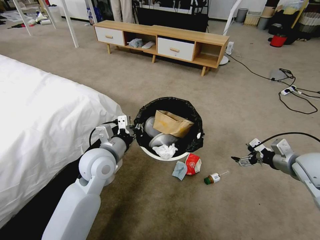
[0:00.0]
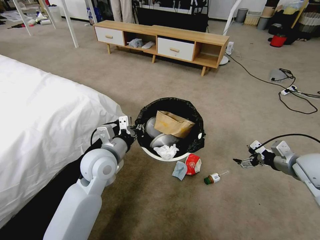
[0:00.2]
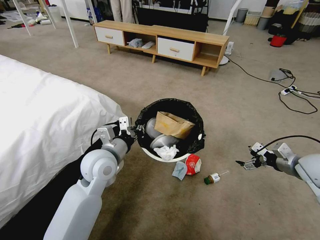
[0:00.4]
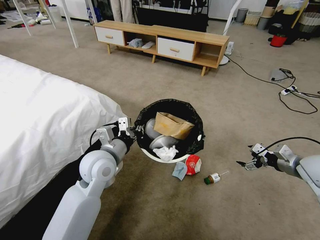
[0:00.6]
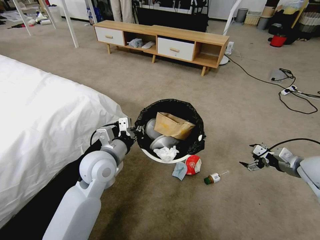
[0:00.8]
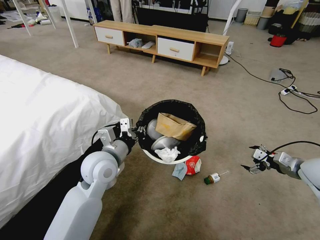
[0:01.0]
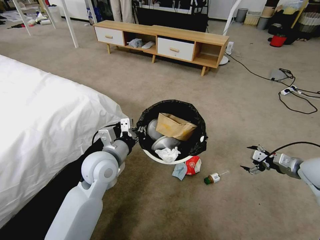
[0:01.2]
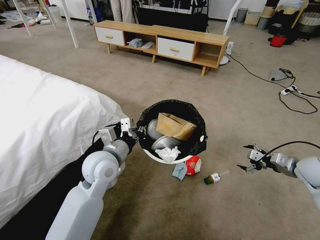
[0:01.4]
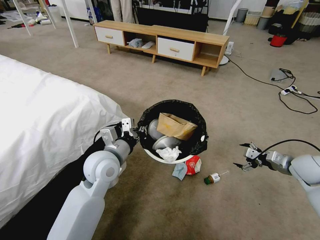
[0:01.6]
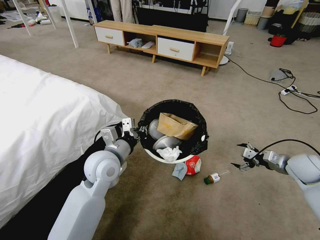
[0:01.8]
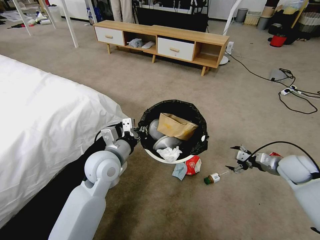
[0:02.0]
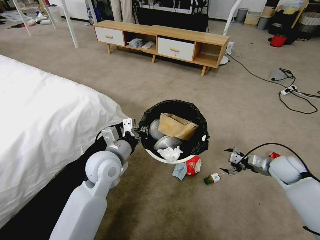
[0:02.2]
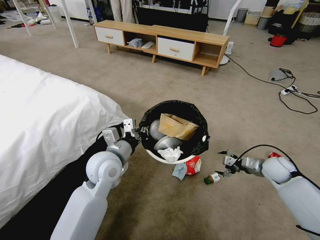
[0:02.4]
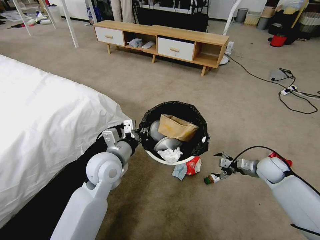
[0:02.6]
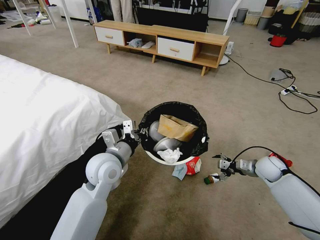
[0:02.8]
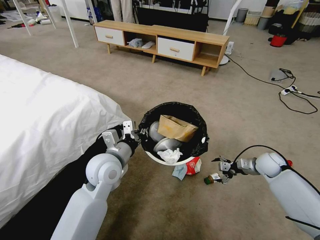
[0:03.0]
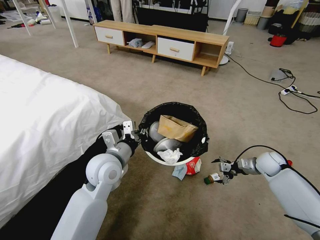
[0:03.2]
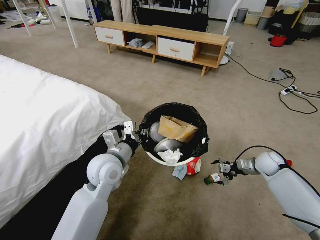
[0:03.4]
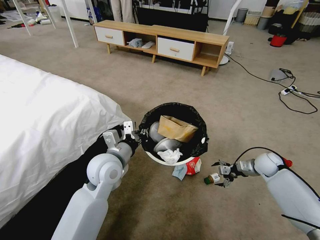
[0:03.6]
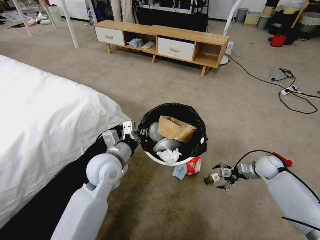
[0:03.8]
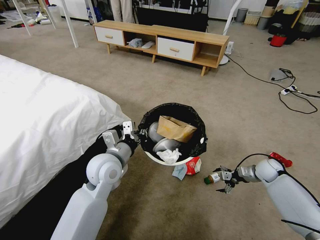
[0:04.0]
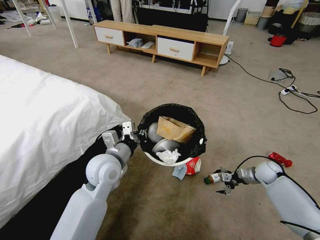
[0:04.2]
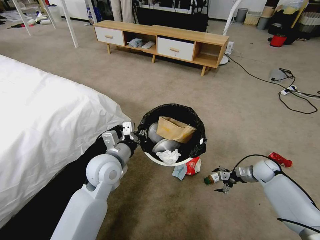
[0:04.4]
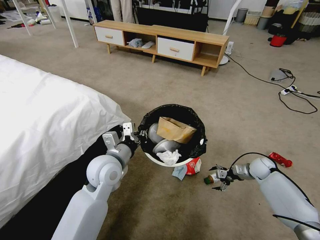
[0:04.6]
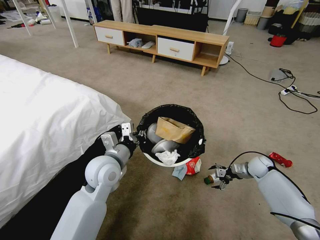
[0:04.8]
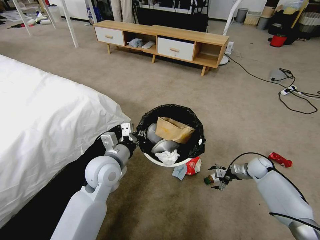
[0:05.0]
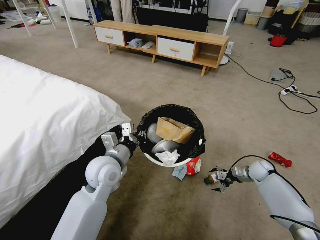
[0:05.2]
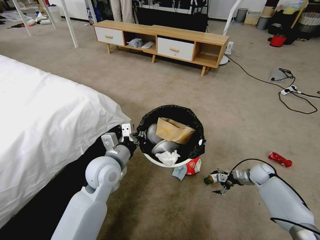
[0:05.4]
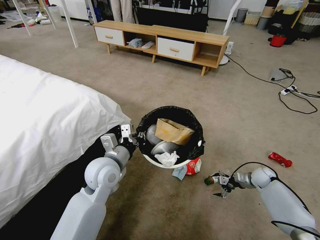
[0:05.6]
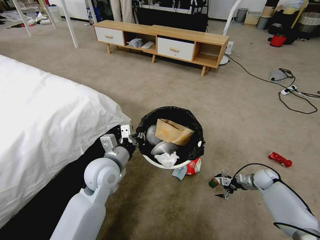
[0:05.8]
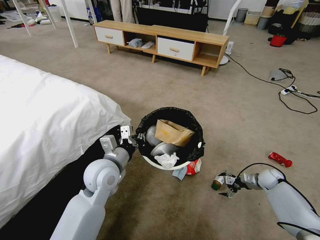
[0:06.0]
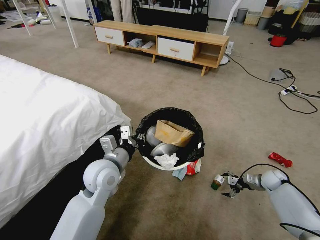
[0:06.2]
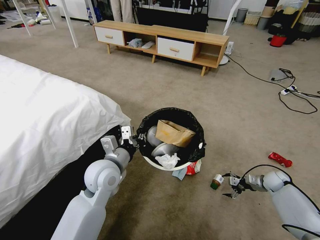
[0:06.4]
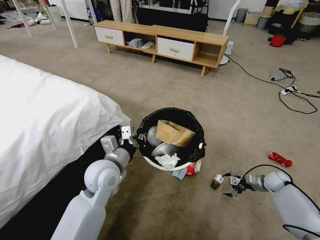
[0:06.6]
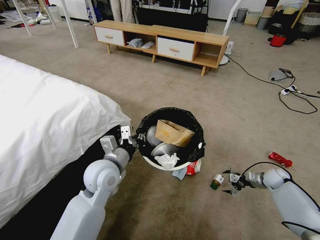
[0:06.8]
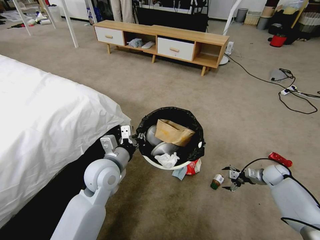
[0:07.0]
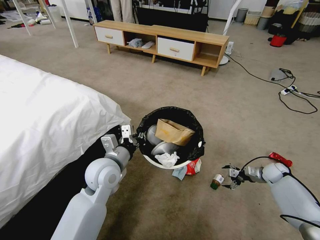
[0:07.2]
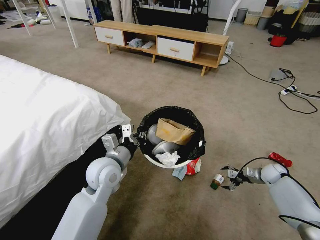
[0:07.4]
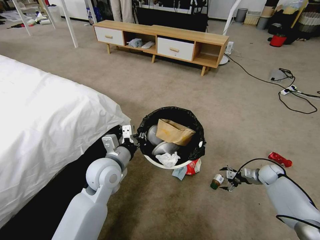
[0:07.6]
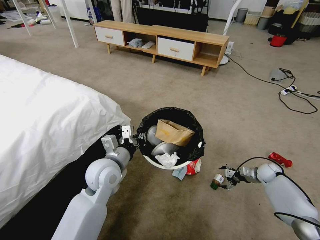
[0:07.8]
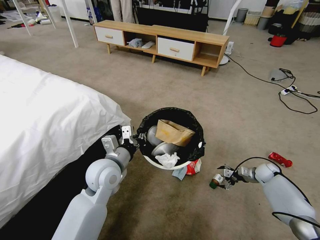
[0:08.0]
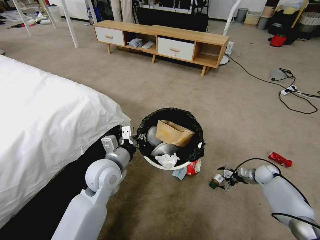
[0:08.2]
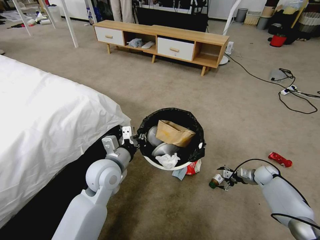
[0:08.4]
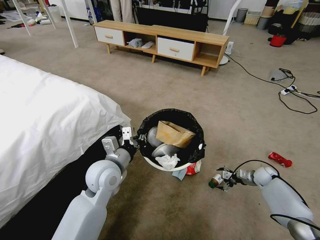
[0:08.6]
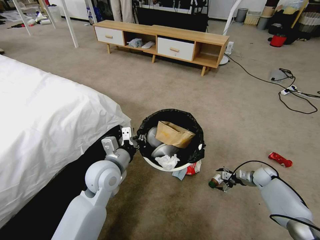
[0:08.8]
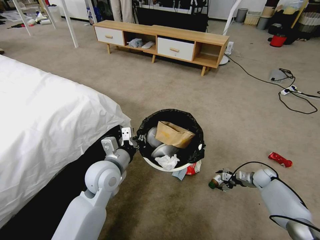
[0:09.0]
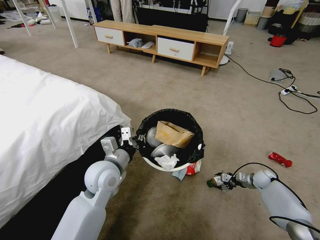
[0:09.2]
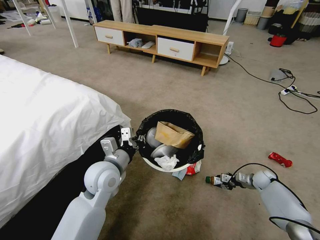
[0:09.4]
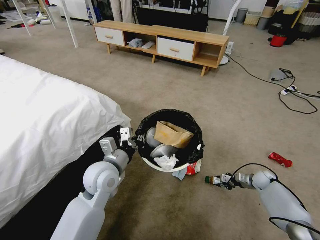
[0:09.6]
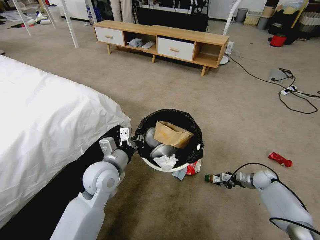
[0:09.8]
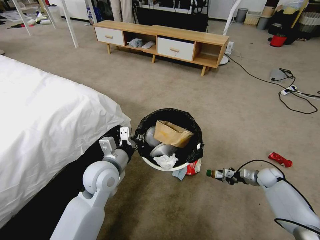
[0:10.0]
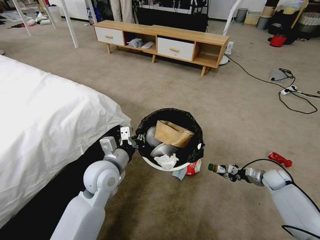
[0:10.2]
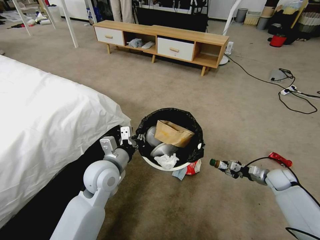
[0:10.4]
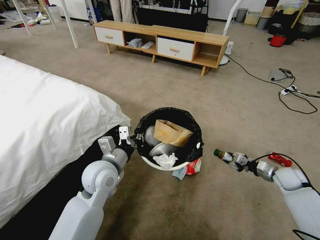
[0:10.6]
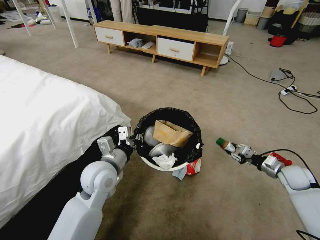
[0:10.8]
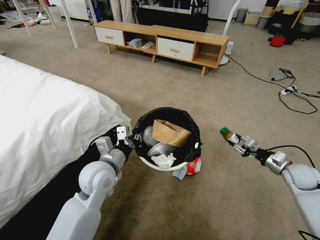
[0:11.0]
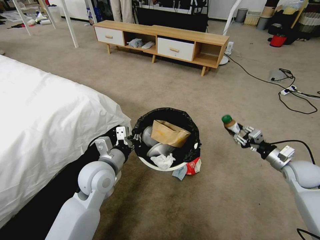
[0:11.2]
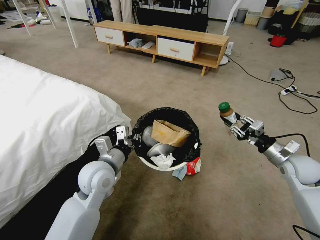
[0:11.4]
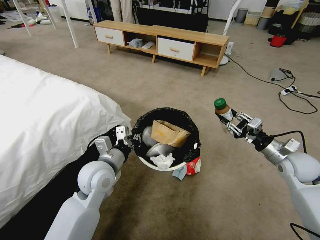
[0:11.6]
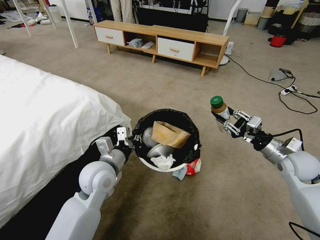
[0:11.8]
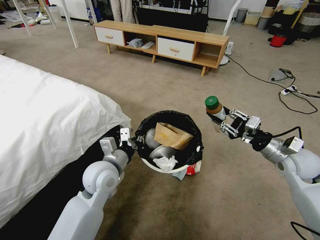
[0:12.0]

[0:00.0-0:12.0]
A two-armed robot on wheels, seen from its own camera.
Task of the whole recording: Pick up the trash bin and place the garbage on the floor into it.
0:00.0 to 0:01.6: The right gripper shifts approximately 10 cm downward and to the right.
0:01.6 to 0:03.0: The right gripper travels downward, forward and to the left by about 10 cm.
0:03.0 to 0:04.4: The right gripper heads downward, covering about 5 cm.
0:04.4 to 0:06.0: The right gripper shifts by some 5 cm.
0:06.0 to 0:09.0: The grippers move only a little.
0:09.0 to 0:10.4: The right gripper shifts approximately 5 cm upward, and closes up.
0:10.4 to 0:12.0: The right gripper travels upward and to the left by roughly 25 cm.

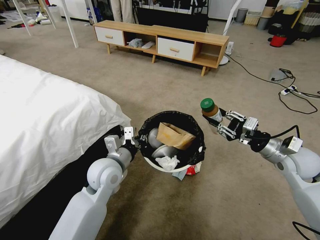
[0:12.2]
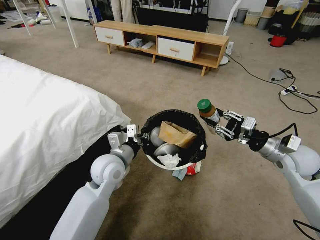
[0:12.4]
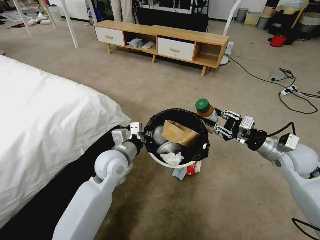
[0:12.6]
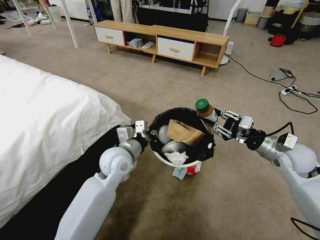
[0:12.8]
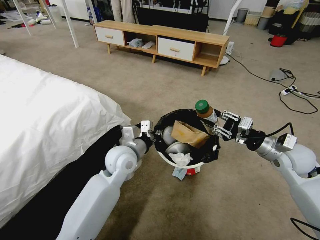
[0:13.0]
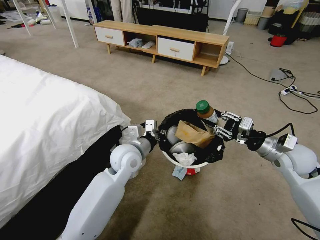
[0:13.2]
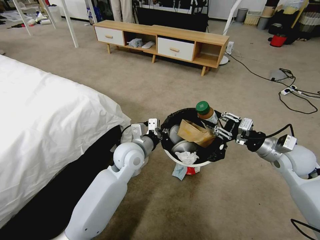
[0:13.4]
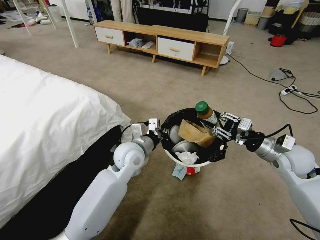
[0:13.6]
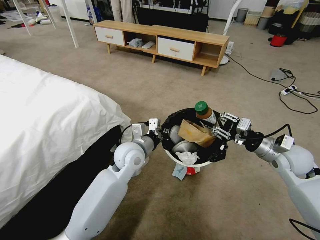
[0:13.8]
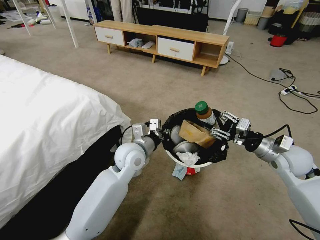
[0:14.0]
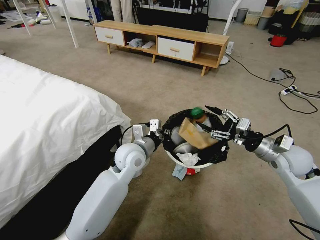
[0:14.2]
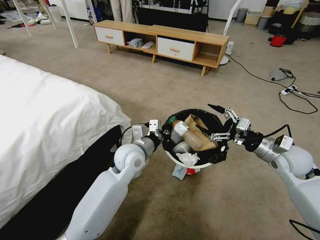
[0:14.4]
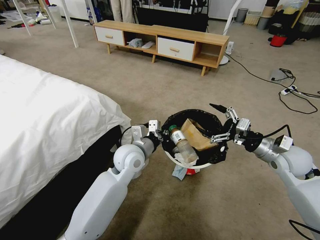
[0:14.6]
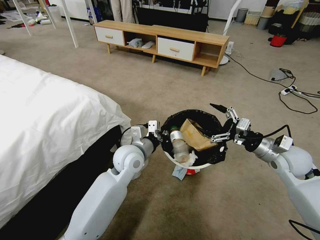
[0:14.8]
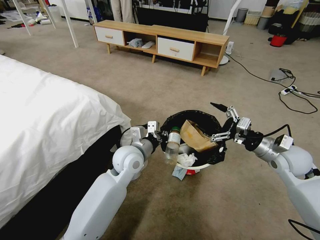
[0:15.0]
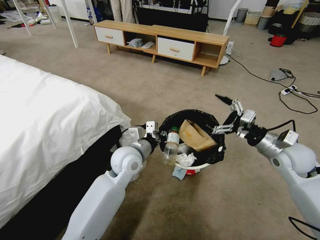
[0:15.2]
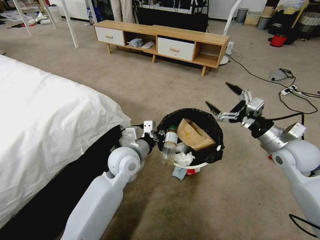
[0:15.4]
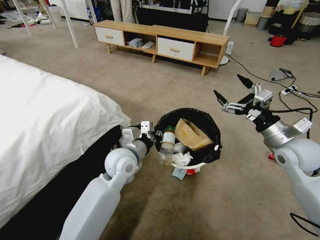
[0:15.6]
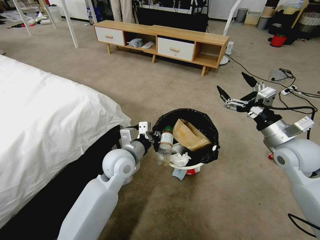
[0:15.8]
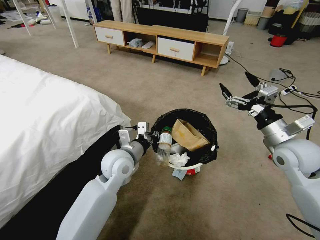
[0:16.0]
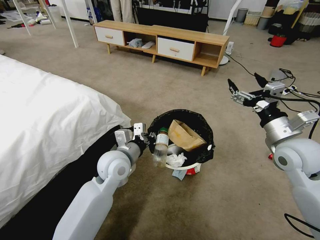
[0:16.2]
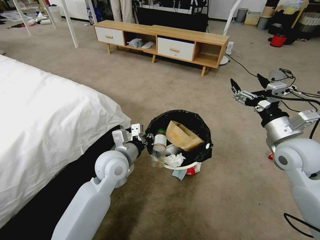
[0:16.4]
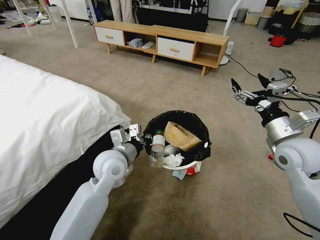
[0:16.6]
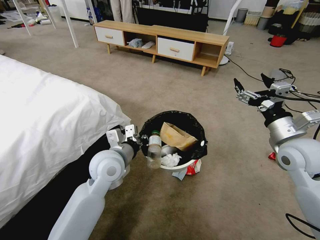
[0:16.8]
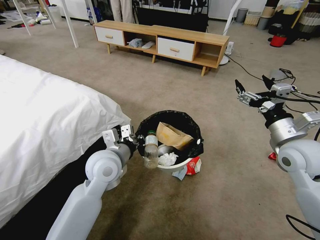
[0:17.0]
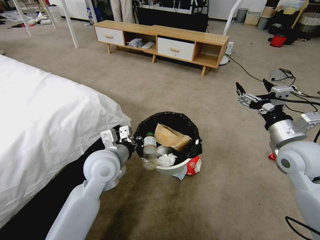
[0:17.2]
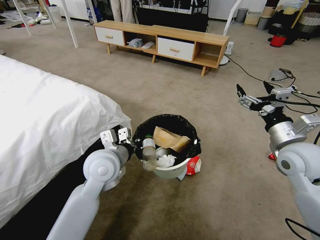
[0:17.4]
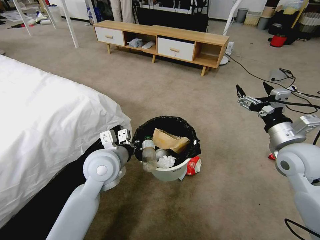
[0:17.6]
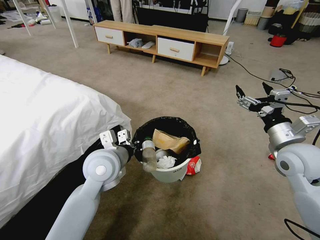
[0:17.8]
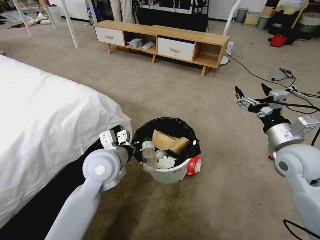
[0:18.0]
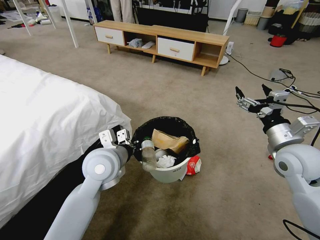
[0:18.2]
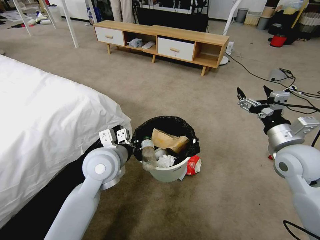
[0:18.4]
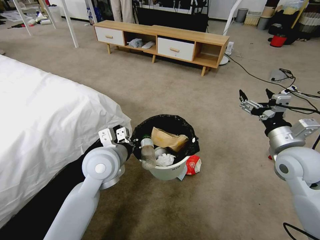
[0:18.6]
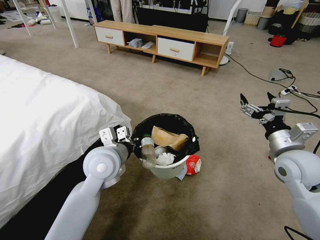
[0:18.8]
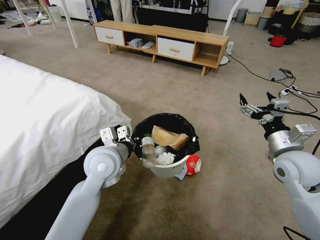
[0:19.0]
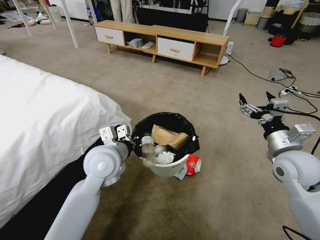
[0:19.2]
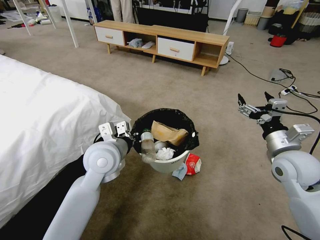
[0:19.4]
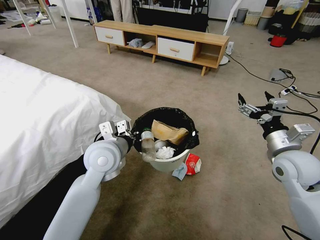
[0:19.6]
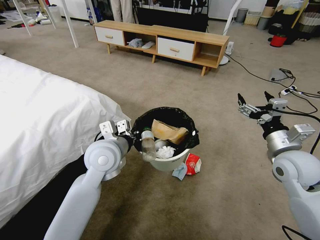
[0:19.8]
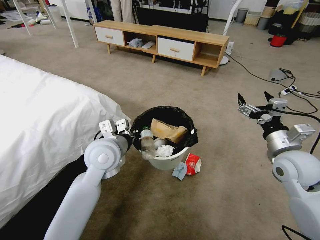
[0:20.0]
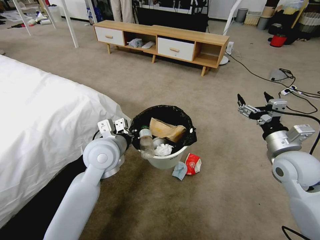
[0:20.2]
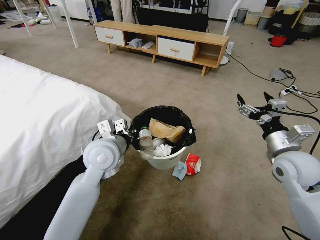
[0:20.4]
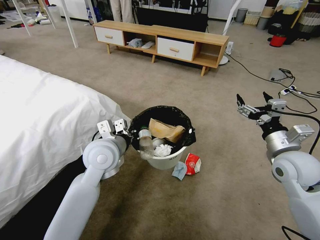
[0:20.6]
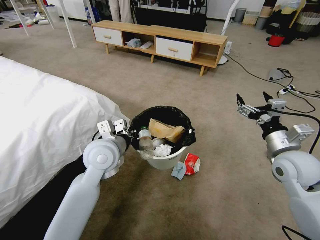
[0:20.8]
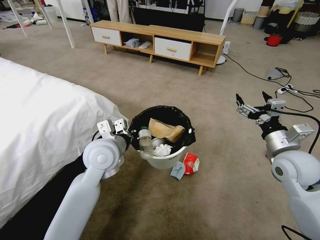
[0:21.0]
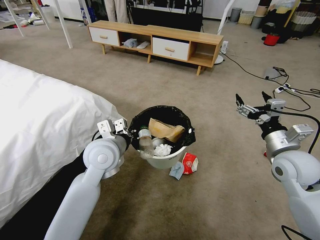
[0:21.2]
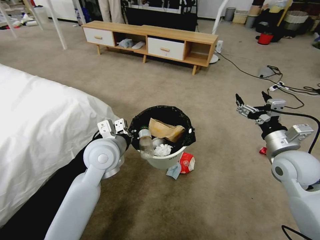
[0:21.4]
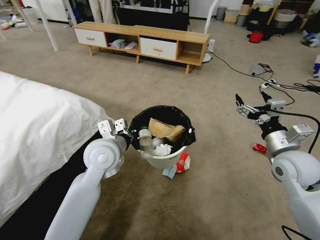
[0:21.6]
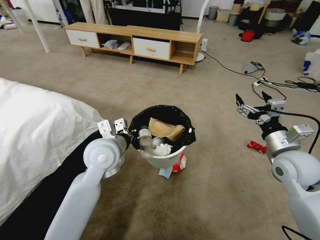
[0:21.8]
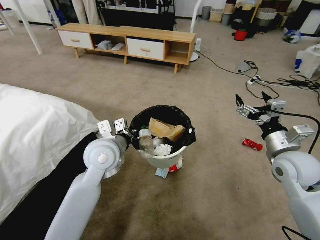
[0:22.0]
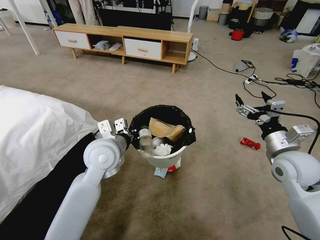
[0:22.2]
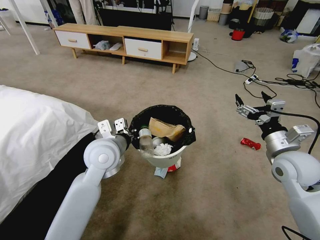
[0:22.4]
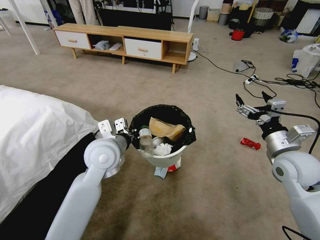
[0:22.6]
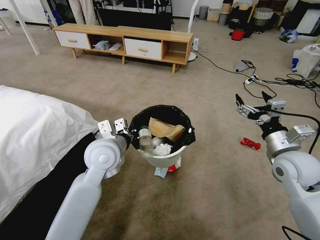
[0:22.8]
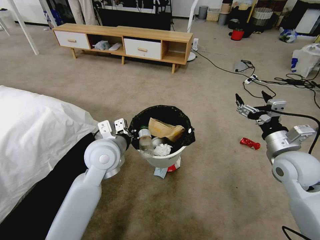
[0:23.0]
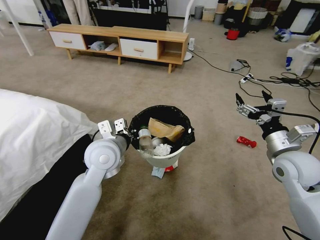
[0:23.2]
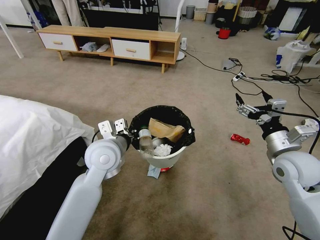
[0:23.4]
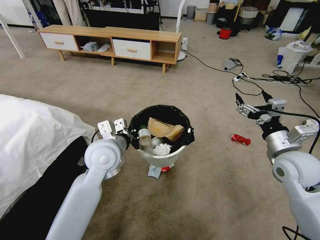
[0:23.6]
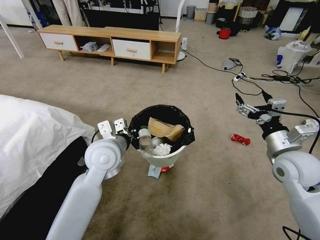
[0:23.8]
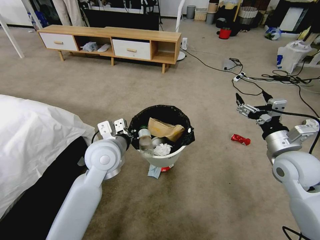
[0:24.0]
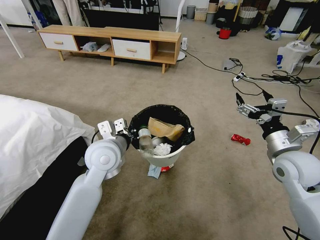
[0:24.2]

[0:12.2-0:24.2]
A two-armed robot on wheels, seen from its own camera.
Task of the whole recording: Pick up the trash bin and place the garbage on the floor into it.
0:12.2 to 0:13.8: The left gripper heads to the right and forward, covering some 10 cm.
0:13.8 to 0:15.2: The right gripper opens its fingers.
0:15.2 to 0:16.6: The left gripper changes place by approximately 5 cm. The right gripper ends up approximately 5 cm from where it was.
0:16.6 to 0:19.8: There are only small adjustments of the grippers.
0:19.8 to 0:21.2: Both grippers stay put.
